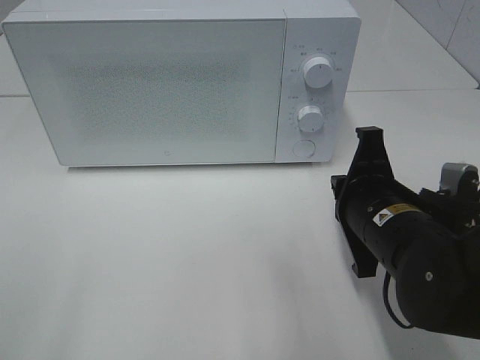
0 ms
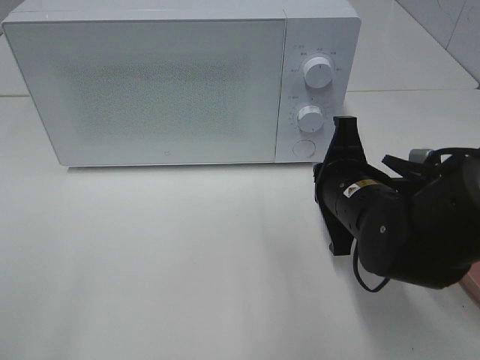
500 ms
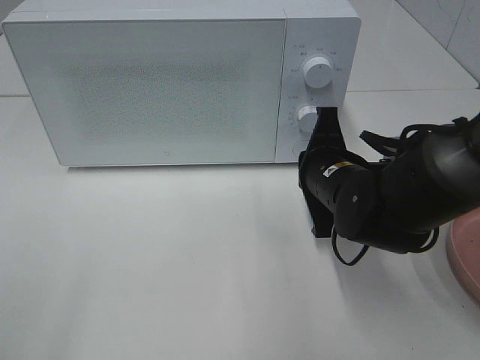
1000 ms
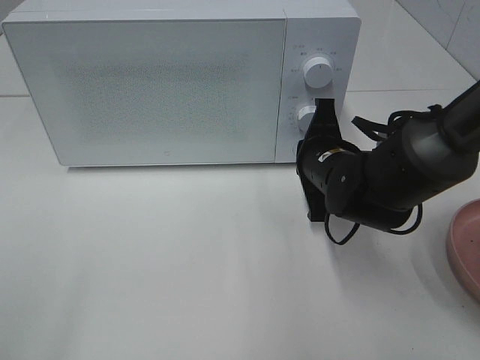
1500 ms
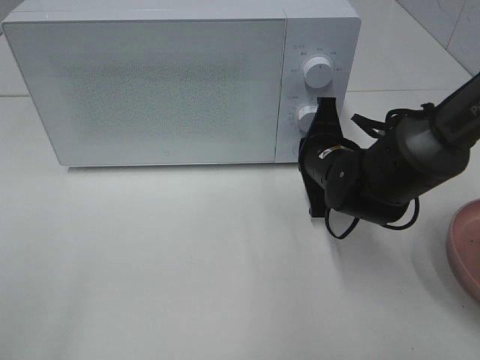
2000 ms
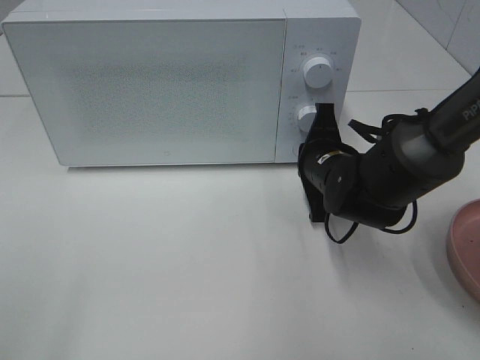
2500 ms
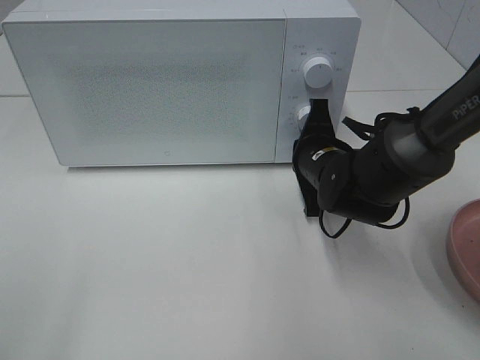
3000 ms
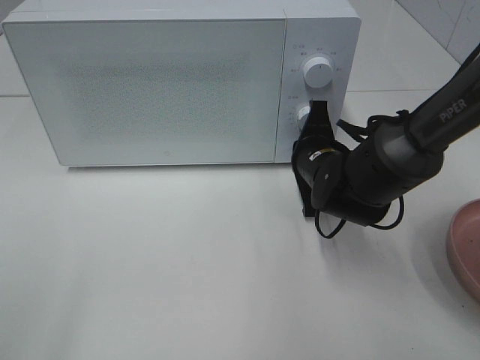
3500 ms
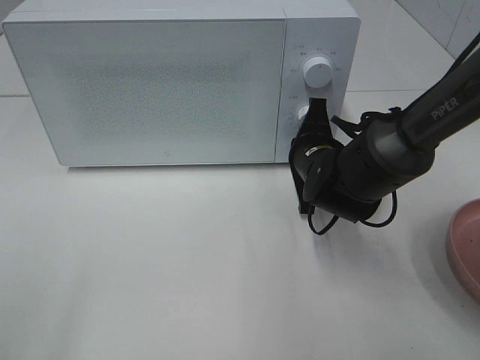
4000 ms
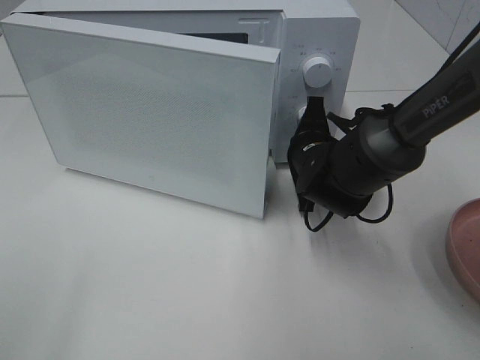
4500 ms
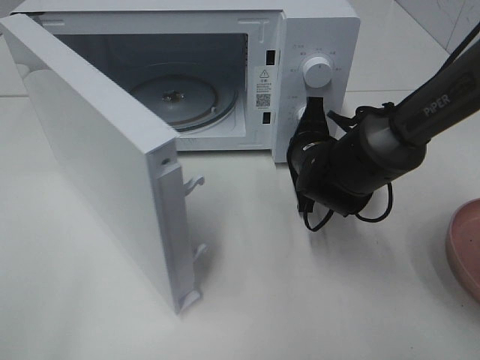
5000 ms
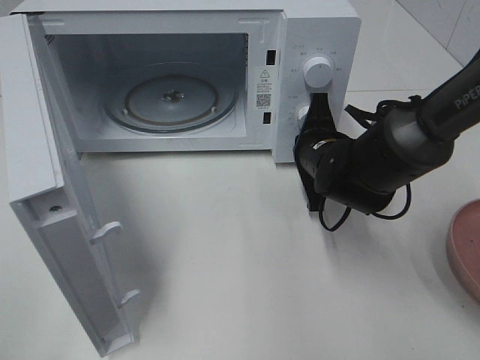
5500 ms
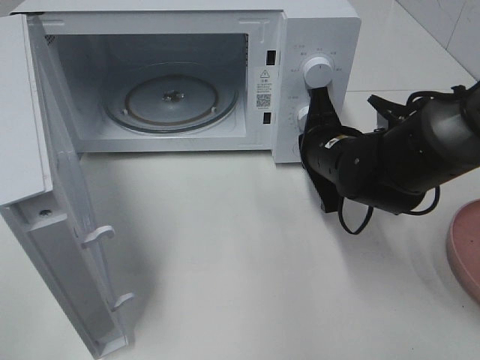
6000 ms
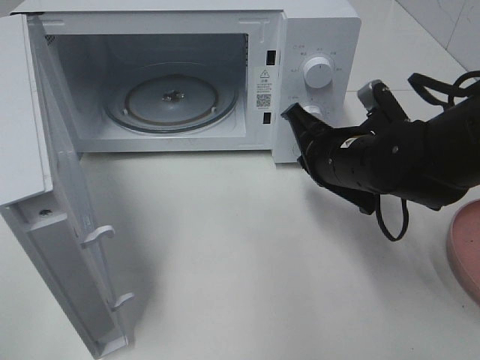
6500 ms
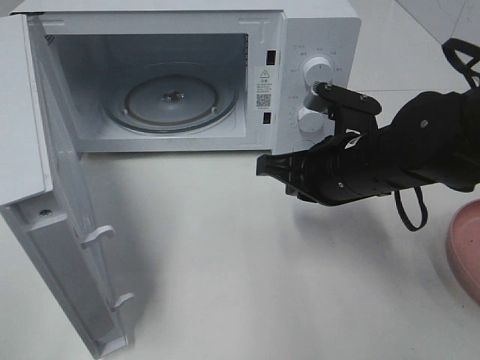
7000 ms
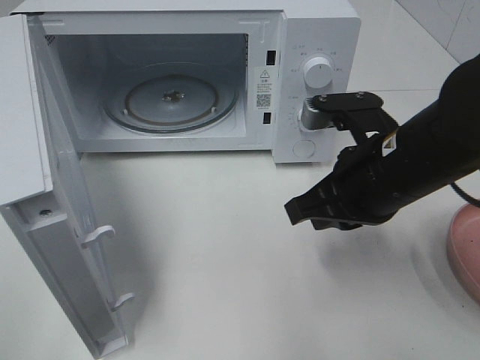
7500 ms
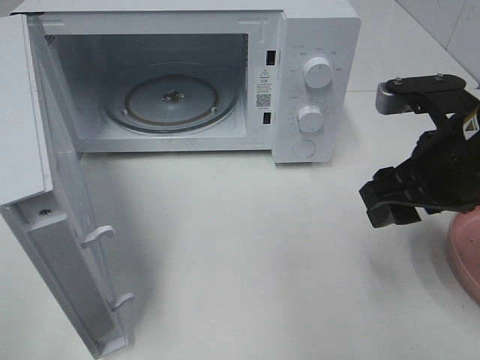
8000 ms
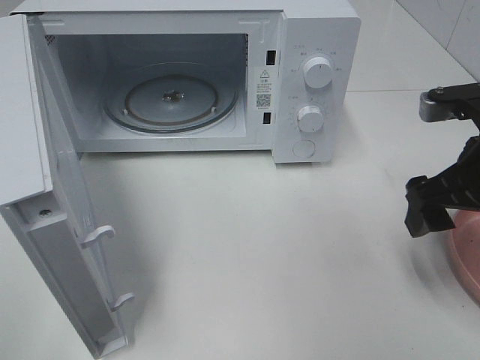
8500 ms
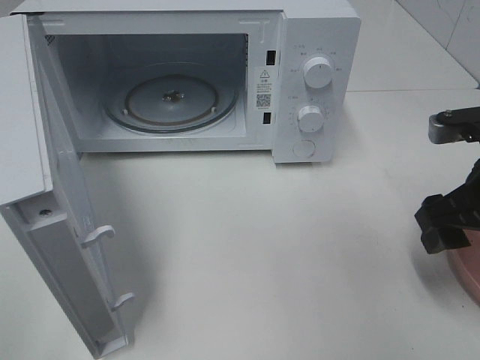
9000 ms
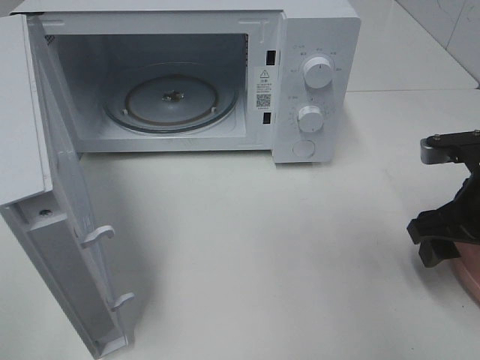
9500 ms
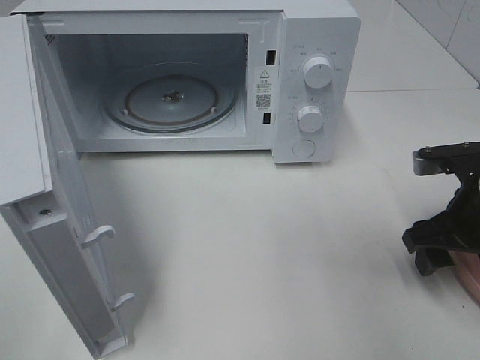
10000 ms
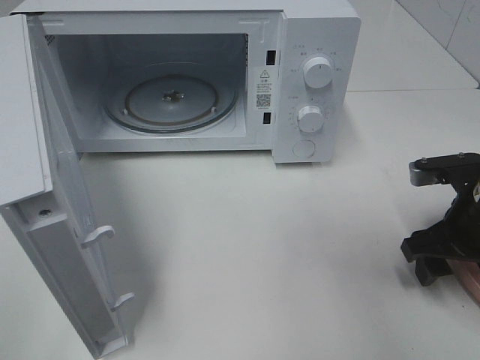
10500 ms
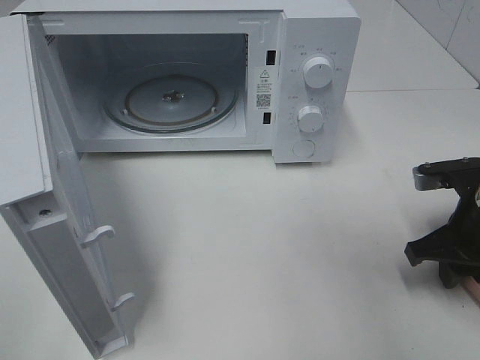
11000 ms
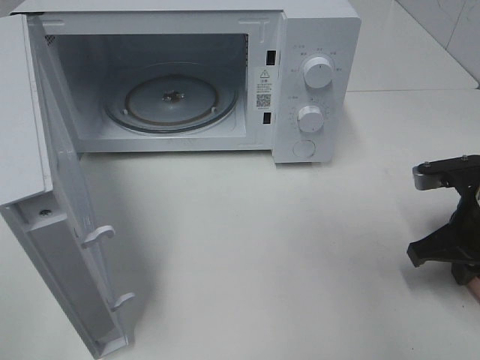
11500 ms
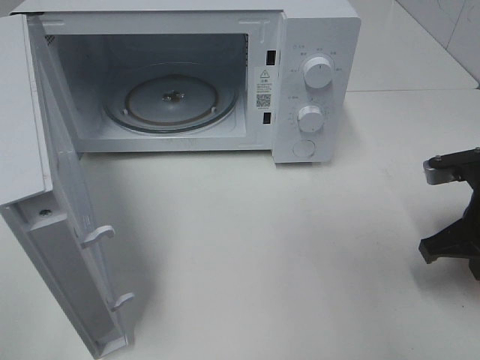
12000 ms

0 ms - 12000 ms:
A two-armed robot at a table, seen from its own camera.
Task of the whole recording: Heat the burger.
Step, 0 ms - 5500 ms: Right hand: press the switch.
Step, 6000 ms - 11500 ms: Right hand: grab the plate with the hamburger.
0 ms - 2000 ms: The right gripper travels forward by some 10 cm.
2000 ms - 4000 ms: The grippers stay close to where they were, moving slightly.
6000 ms - 8000 ms: The right gripper travels upward, backward and to the right by roughly 15 cm, and opens.
8000 ms - 10000 ms: The right gripper heads downward and to the right, covering some 10 cm.
10000 ms - 12000 ms: The right gripper closes.

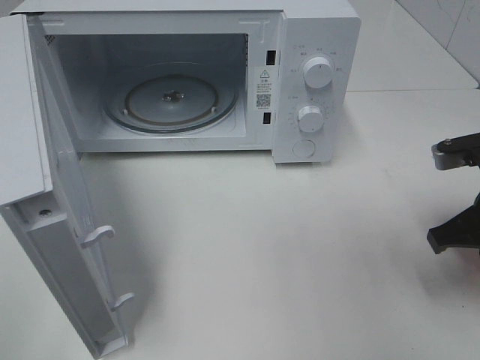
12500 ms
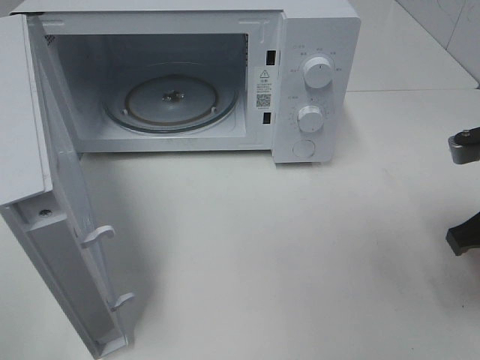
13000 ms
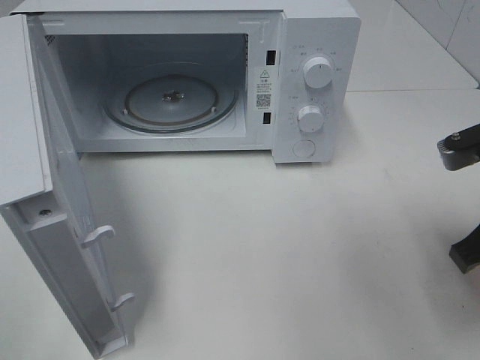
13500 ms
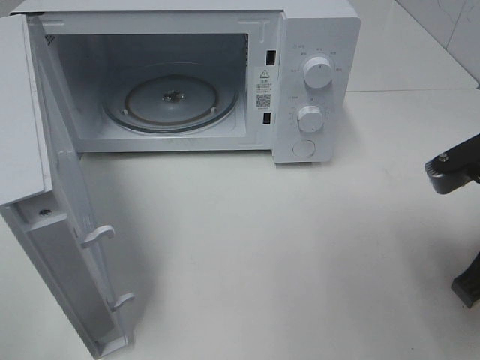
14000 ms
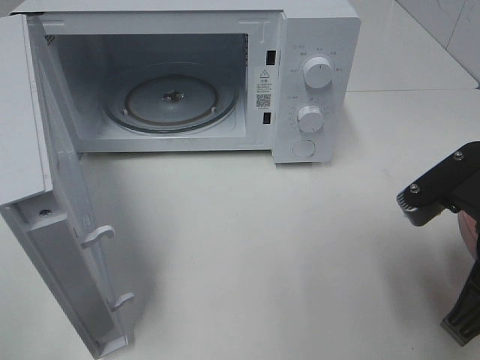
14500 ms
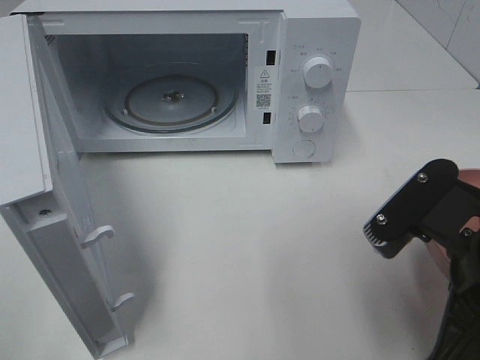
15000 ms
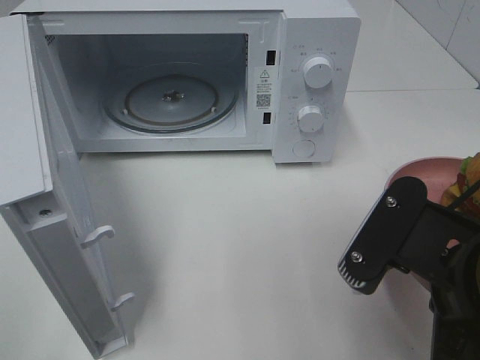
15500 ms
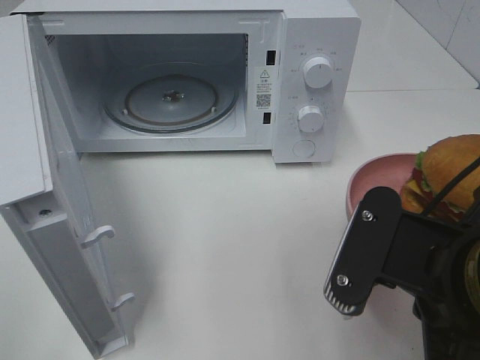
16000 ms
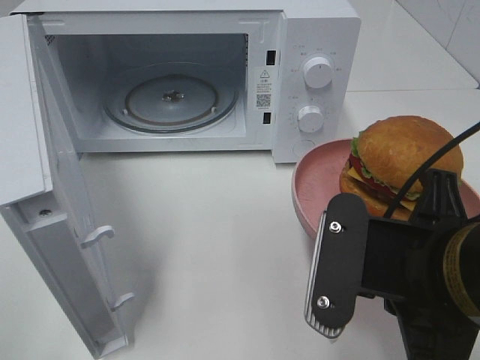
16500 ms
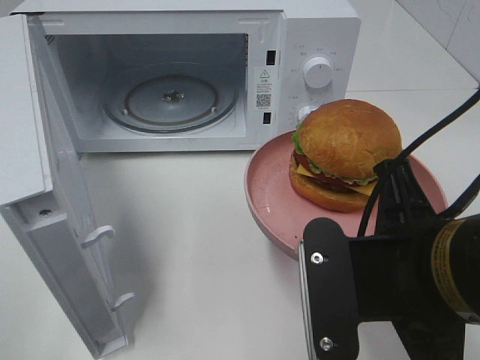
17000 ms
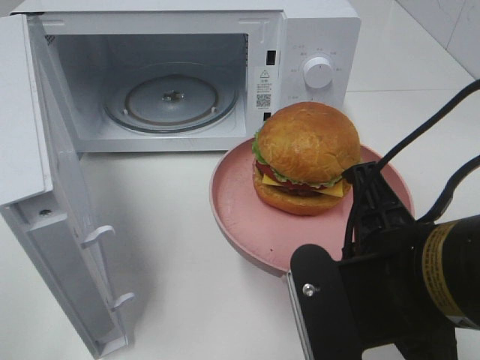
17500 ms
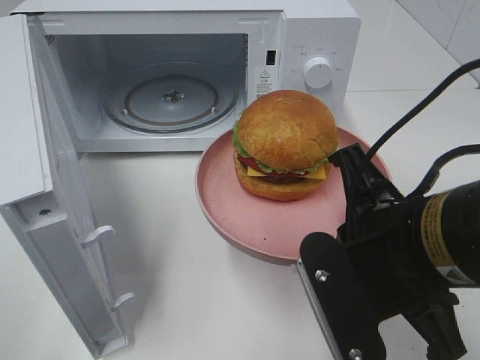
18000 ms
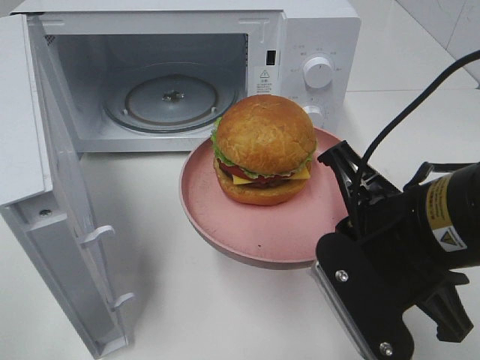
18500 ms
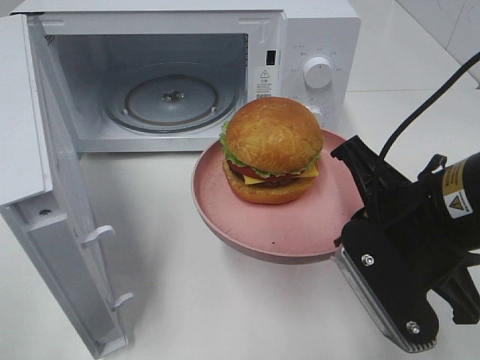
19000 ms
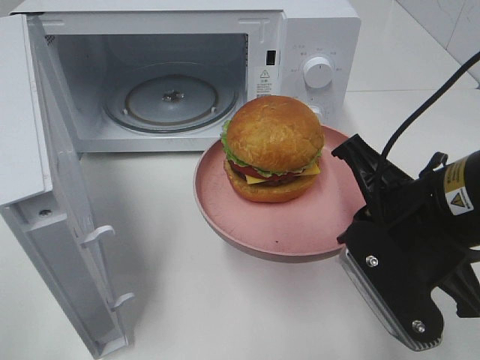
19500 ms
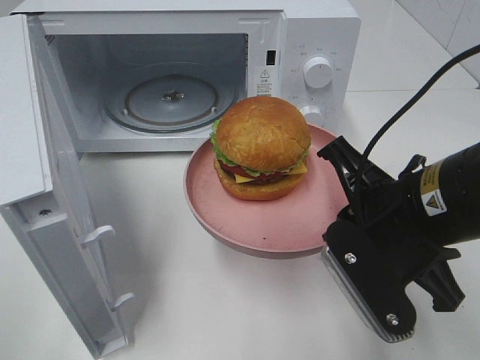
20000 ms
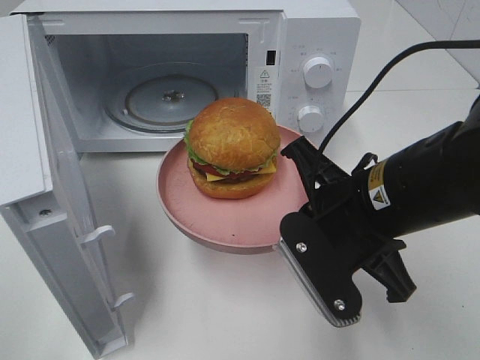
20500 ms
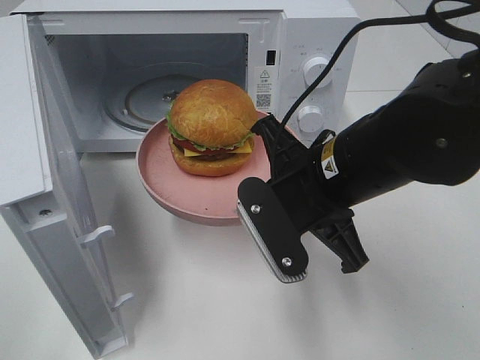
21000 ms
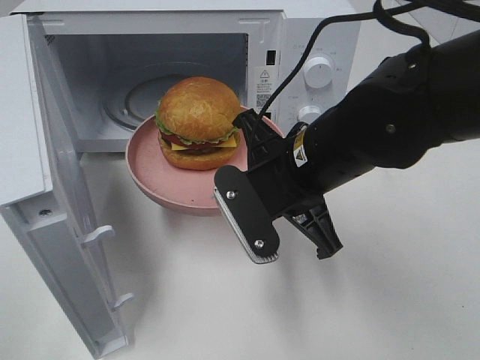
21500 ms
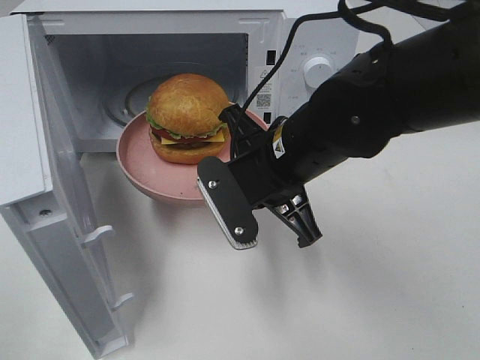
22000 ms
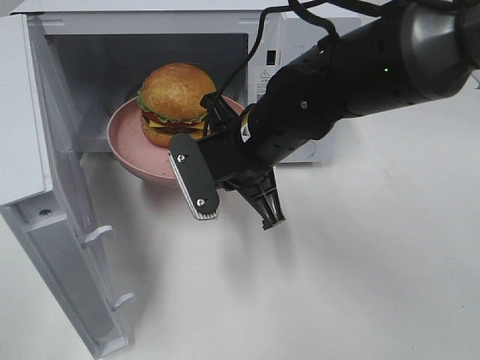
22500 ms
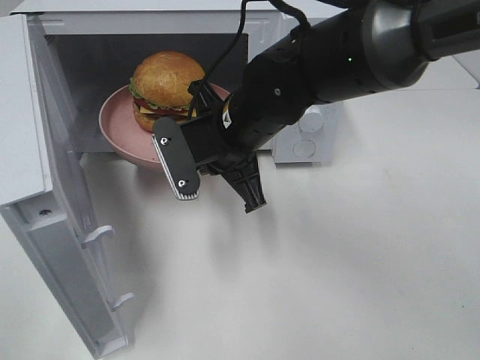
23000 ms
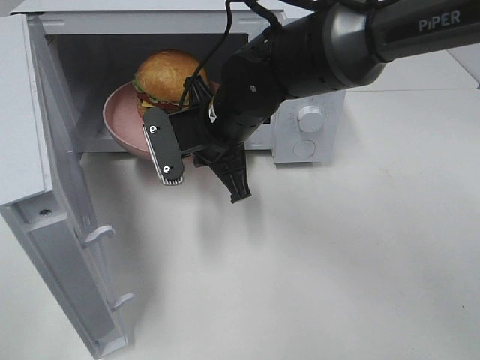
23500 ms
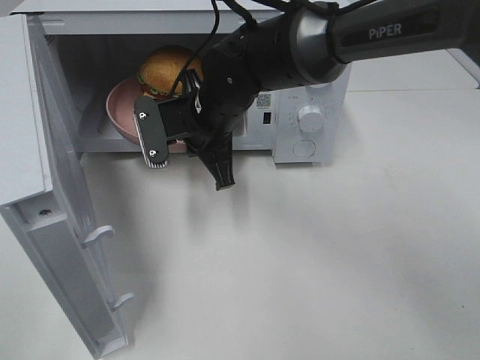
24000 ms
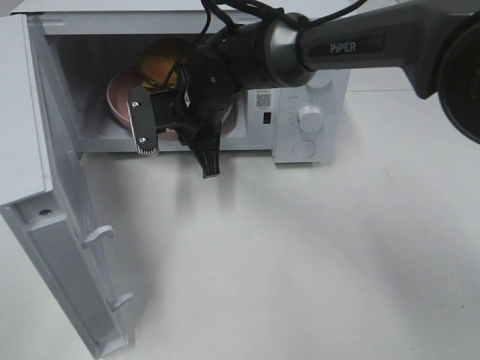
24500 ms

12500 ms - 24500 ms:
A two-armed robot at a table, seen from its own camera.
Task of the whole recording: Heat the burger.
12500 ms - 14500 ms: The right gripper travels backward and to the left by approximately 10 cm.
14500 ms - 16500 ms: The right gripper heads to the left, covering roughly 5 cm.
18500 ms - 20500 ms: The right gripper shifts by about 5 cm.
20500 ms - 22500 ms: The right gripper shifts approximately 15 cm forward and to the left.
22500 ms - 24500 ms: The right gripper heads forward and to the left, covering roughly 10 cm.

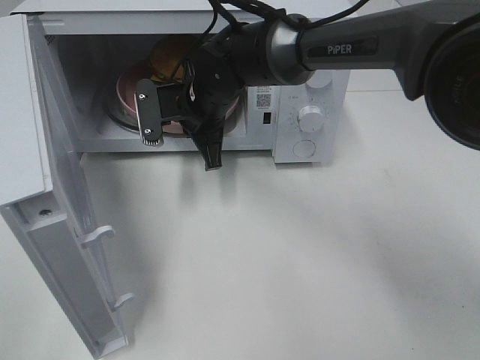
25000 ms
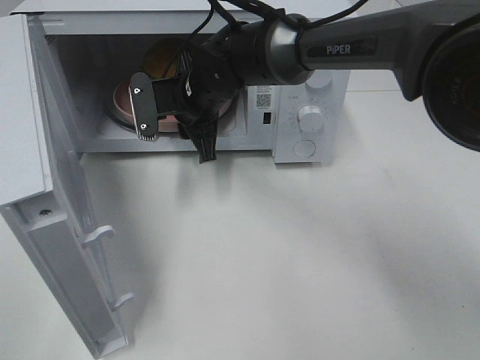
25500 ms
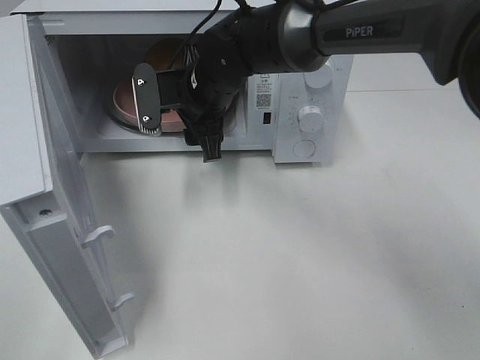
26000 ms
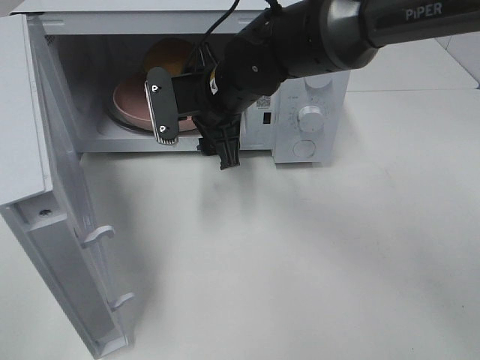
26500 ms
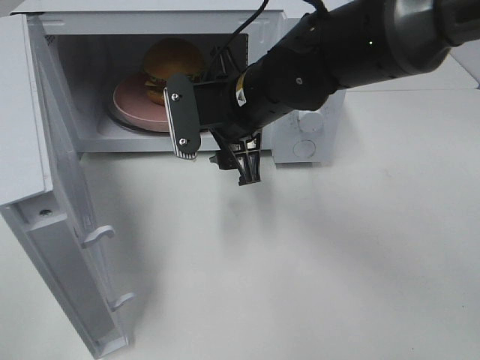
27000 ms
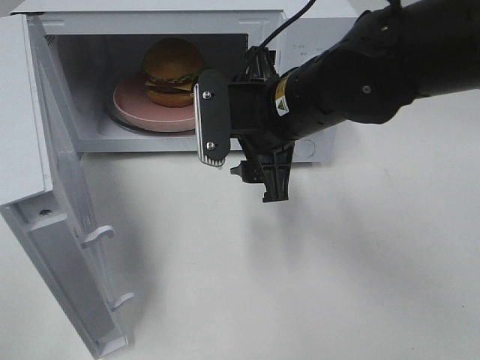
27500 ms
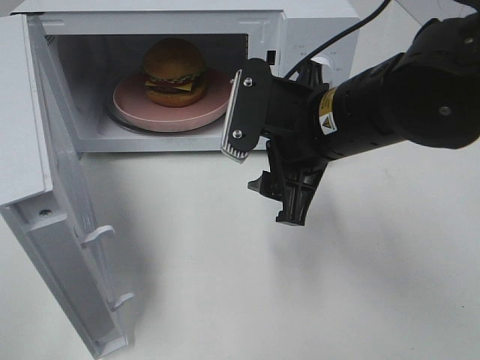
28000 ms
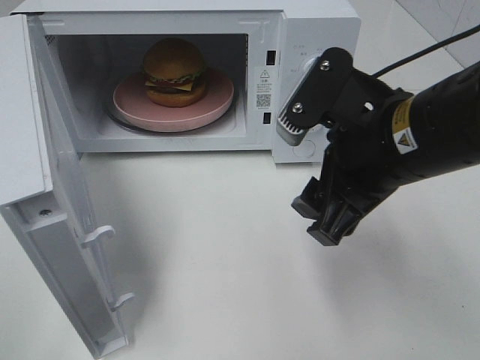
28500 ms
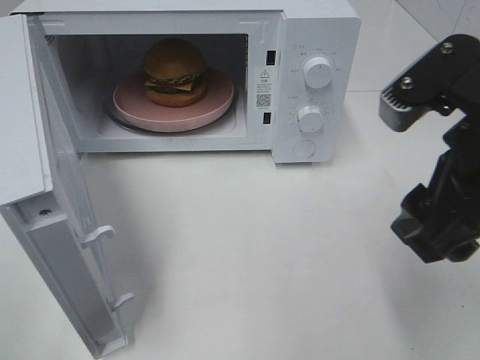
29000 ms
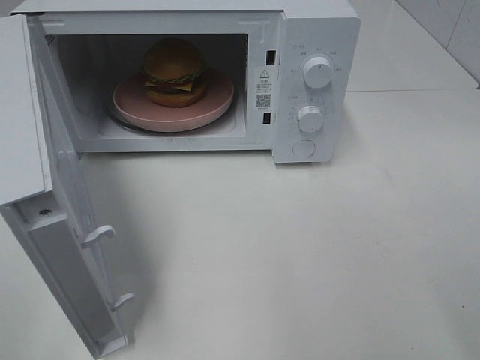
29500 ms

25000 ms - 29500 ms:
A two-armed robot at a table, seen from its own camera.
Task of the whole recording: Heat the burger.
25000 ms - 27000 ms: The right gripper travels backward and to the right by approximately 10 cm, and opens up.
27000 ms - 29500 ms: The right gripper moves backward, to the right and upward, about 35 cm.
